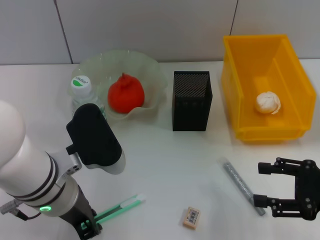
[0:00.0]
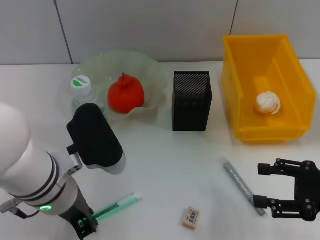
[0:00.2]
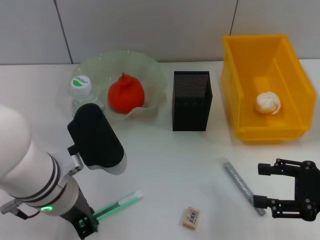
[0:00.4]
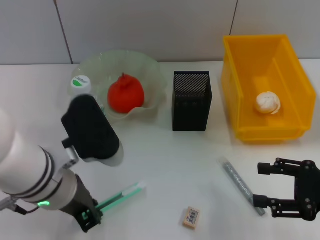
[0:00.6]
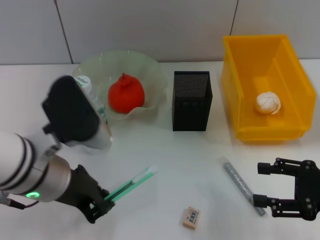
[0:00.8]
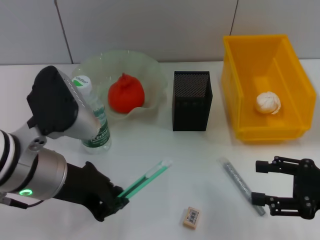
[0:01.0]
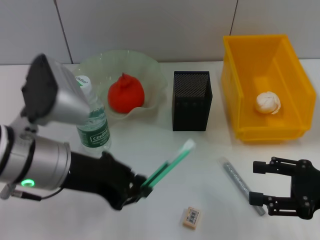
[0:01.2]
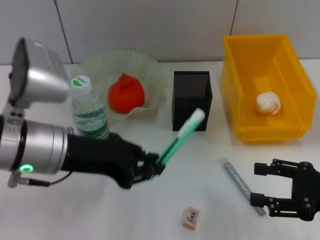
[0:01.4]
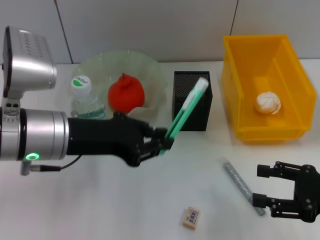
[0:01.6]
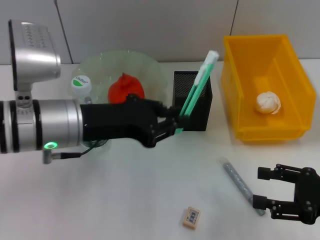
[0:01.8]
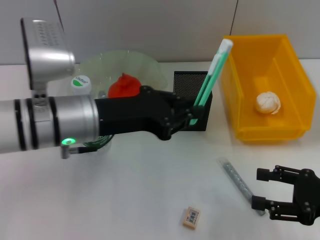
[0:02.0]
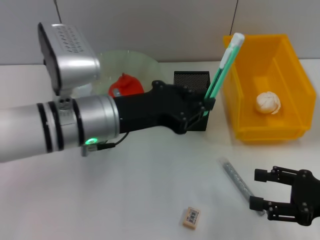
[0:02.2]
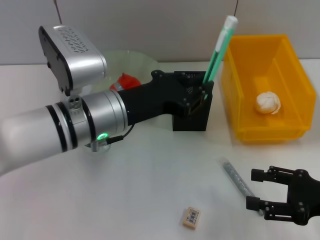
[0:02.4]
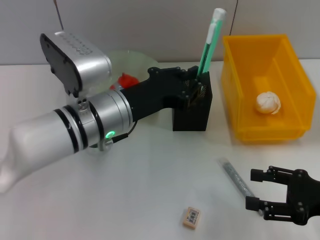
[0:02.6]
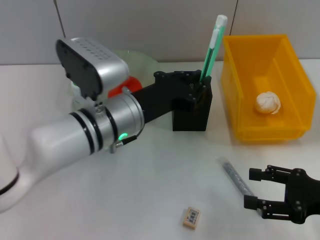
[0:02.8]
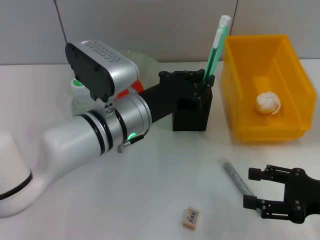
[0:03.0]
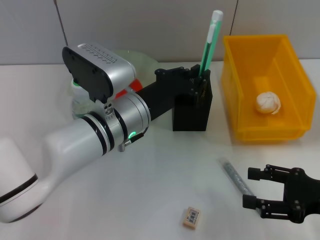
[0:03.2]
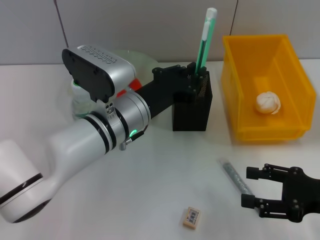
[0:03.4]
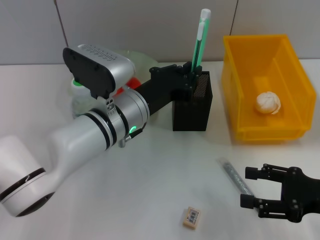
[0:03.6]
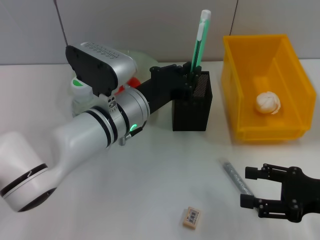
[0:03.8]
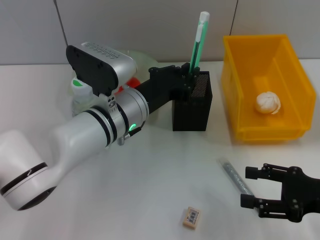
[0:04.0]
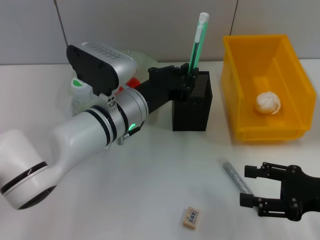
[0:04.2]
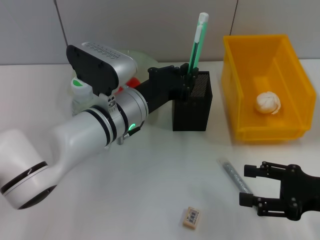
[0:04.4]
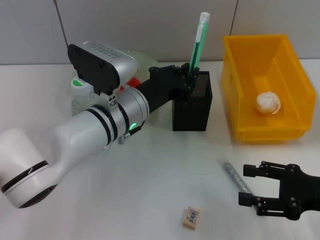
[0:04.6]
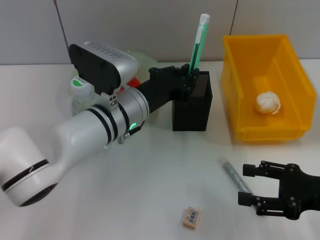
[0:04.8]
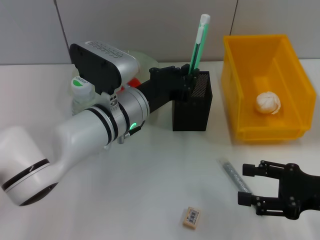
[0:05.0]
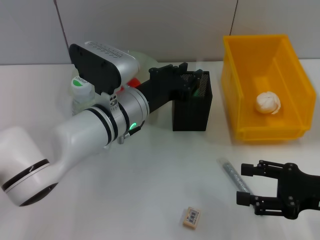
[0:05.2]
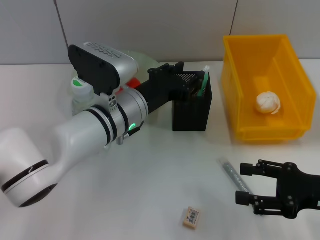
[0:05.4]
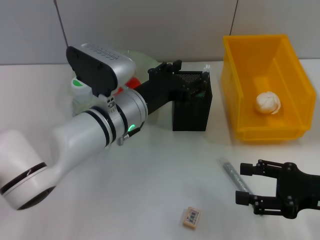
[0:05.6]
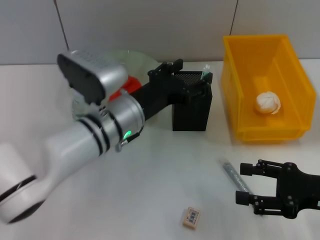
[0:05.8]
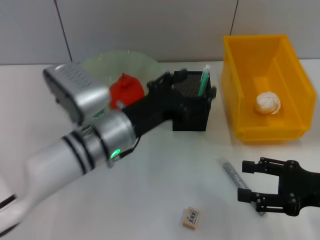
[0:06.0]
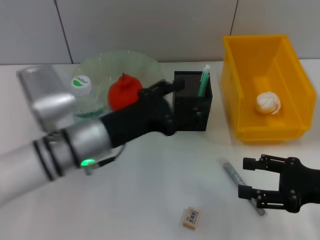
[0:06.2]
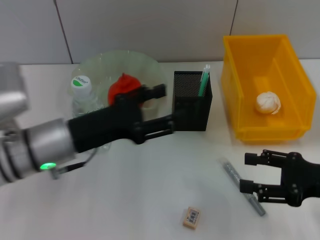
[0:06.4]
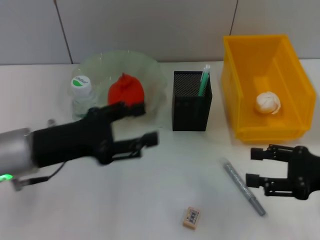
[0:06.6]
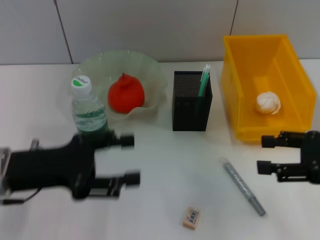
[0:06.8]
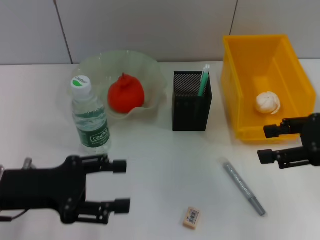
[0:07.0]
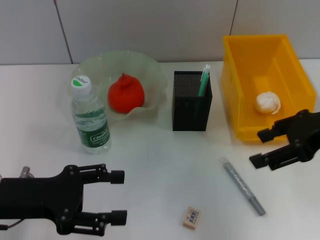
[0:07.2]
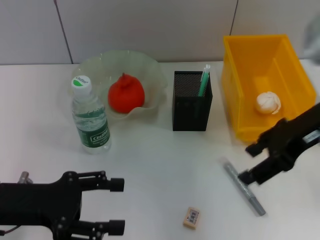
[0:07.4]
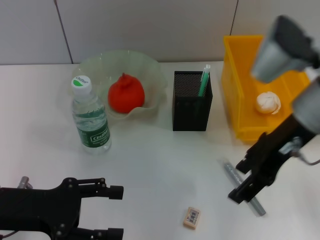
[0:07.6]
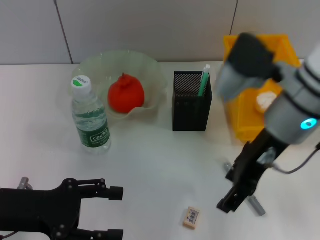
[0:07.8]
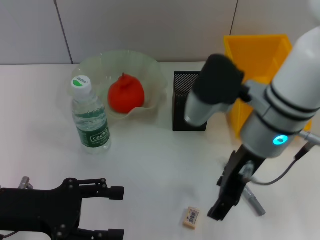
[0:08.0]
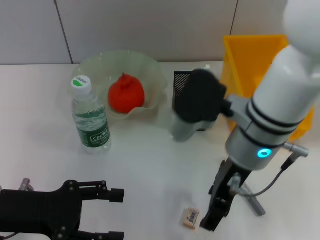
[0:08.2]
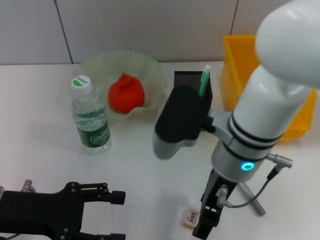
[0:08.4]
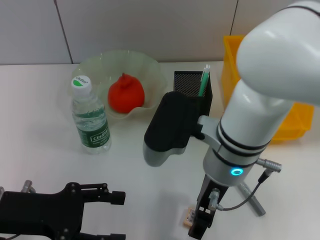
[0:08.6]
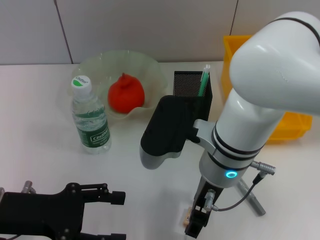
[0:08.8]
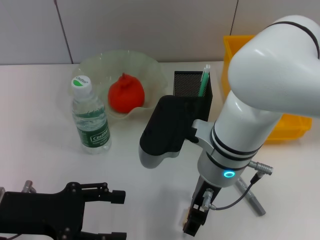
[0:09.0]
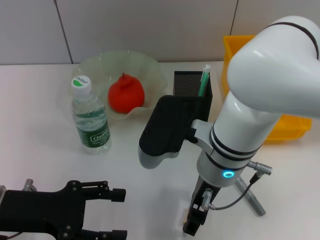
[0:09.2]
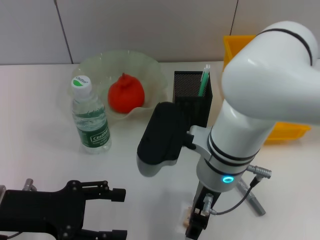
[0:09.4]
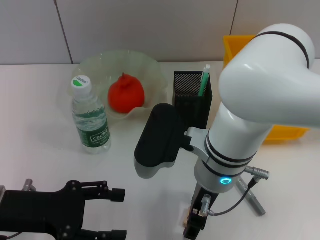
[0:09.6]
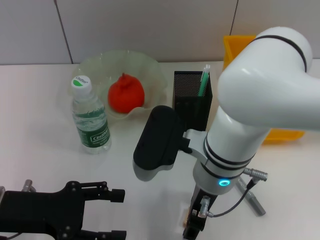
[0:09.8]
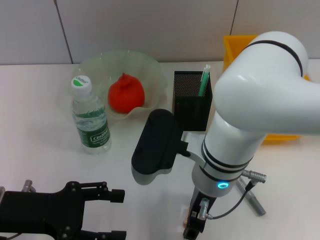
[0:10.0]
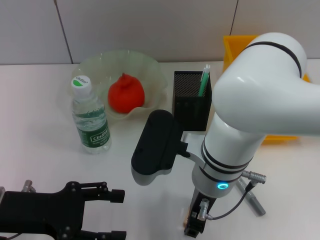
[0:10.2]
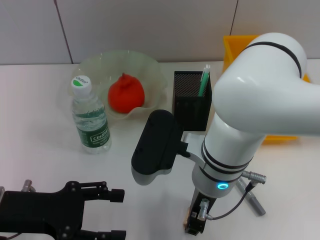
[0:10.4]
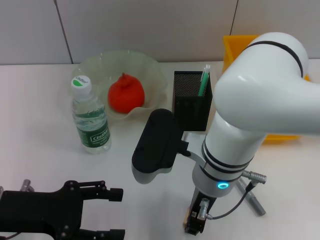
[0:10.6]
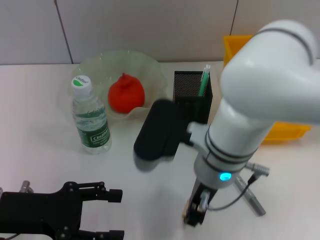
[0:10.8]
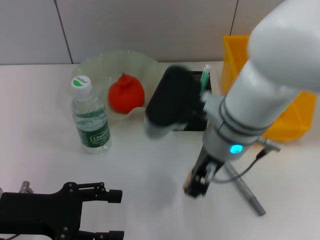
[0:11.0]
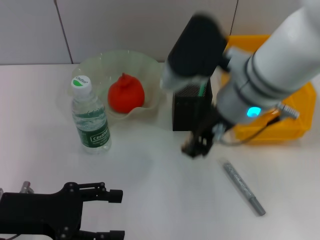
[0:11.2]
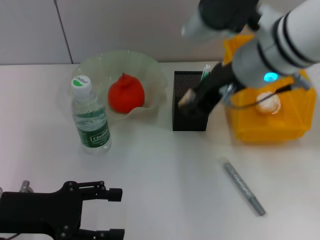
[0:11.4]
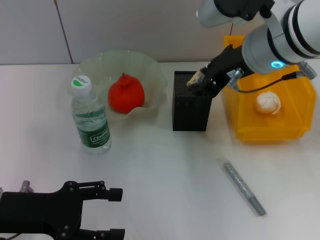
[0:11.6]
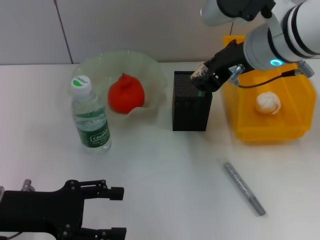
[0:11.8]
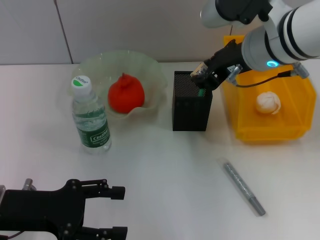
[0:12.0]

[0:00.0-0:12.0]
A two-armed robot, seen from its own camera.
Step, 0:00.6 to 0:05.4: Place the blue utility knife into the pen holder with the left hand.
Step, 0:05.6 to 0:10.4: Grab the eraser with the right hand.
0:00.0 to 0:01.6: The left gripper shifts by some 5 cm.
0:01.6 to 0:03.0: The left gripper travels to the right and downward by roughly 10 cm.
0:03.0 to 0:04.4: The grippers make only small movements.
0:04.4 to 0:06.0: The left gripper opens its fingers.
0:06.0 to 0:07.6: The left gripper heads to the left and backward, covering about 20 cm, while the right gripper travels upward, to the left and forward by roughly 20 cm.
0:07.6 to 0:09.0: The right gripper moves to the left and downward, approximately 15 cm.
0:09.0 to 0:10.4: There are only small adjustments of the grippers.
0:10.4 to 0:12.0: The right gripper shifts some 15 cm upward, forward and to the right.

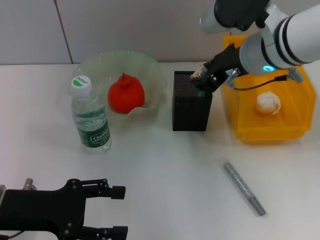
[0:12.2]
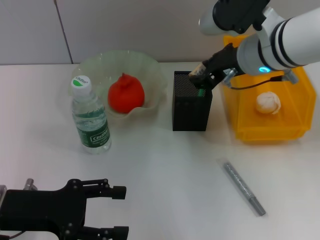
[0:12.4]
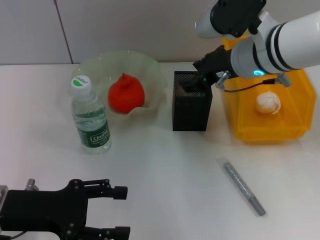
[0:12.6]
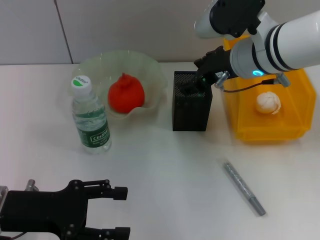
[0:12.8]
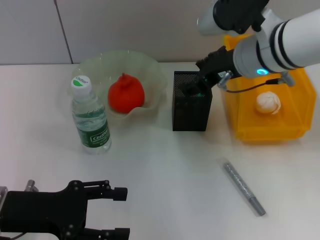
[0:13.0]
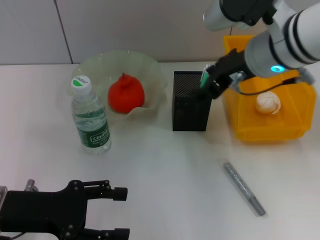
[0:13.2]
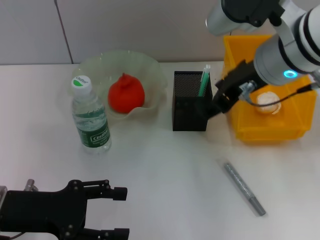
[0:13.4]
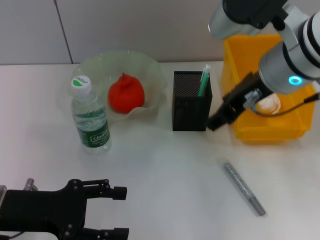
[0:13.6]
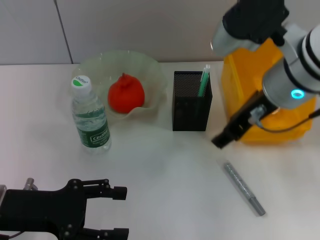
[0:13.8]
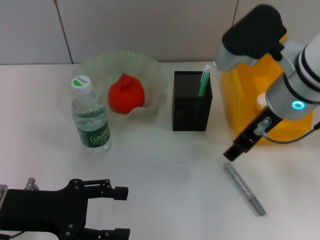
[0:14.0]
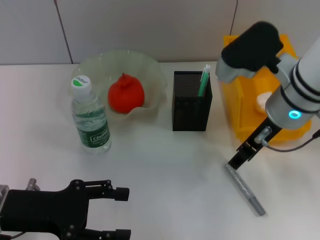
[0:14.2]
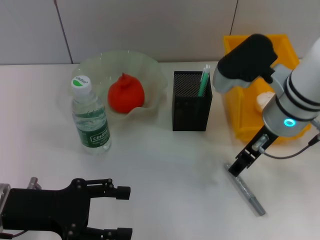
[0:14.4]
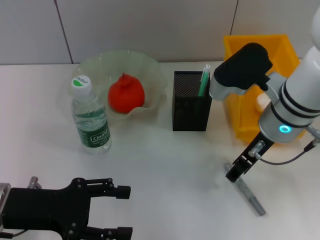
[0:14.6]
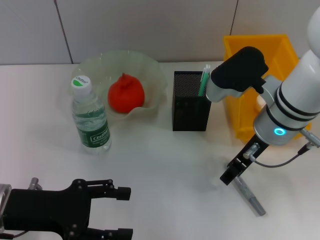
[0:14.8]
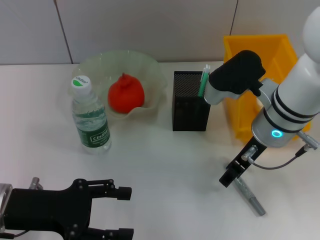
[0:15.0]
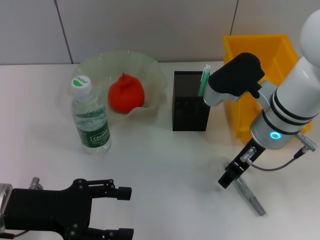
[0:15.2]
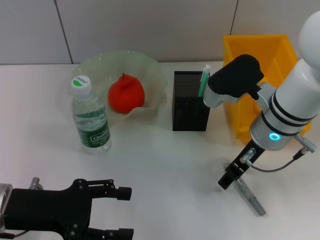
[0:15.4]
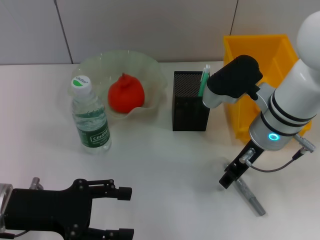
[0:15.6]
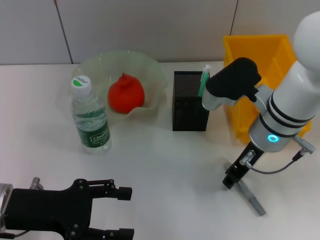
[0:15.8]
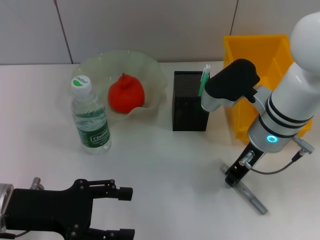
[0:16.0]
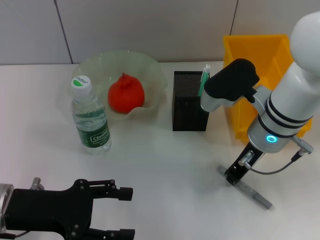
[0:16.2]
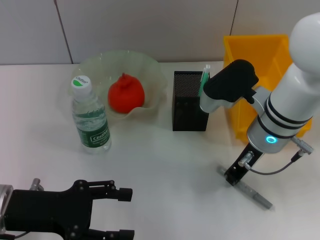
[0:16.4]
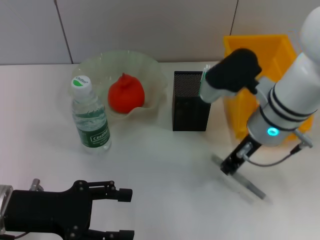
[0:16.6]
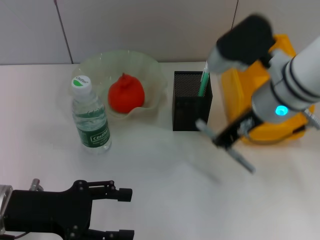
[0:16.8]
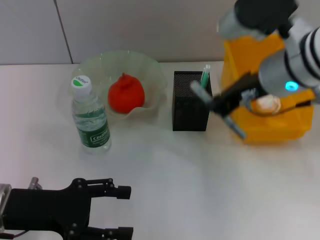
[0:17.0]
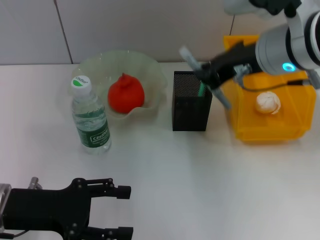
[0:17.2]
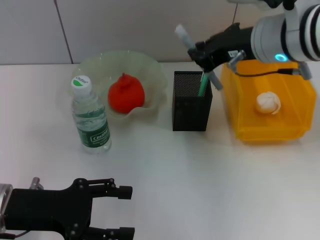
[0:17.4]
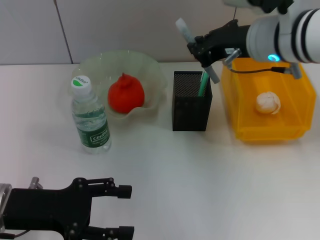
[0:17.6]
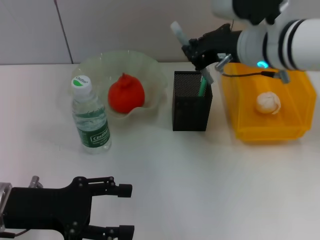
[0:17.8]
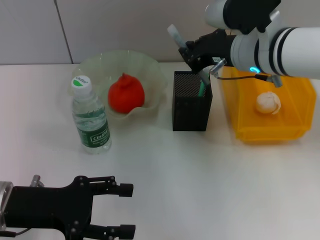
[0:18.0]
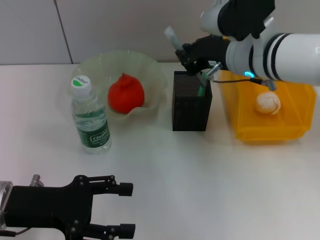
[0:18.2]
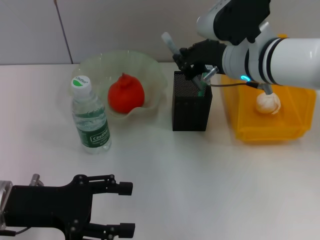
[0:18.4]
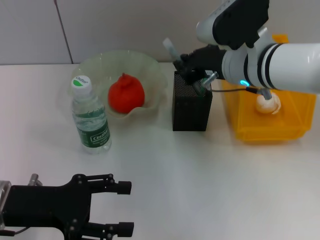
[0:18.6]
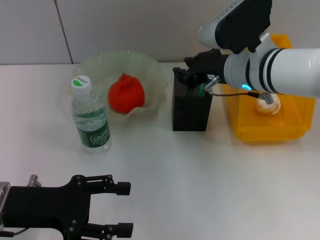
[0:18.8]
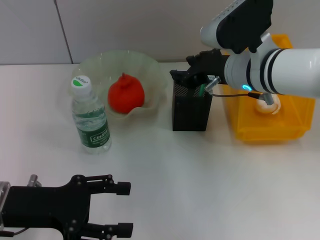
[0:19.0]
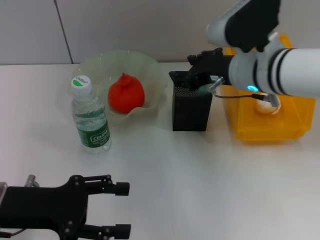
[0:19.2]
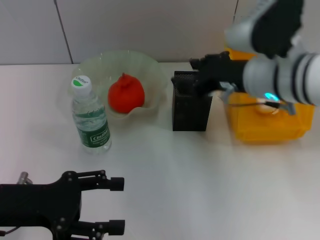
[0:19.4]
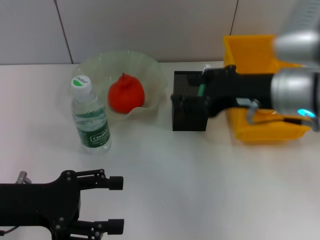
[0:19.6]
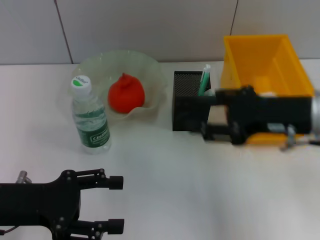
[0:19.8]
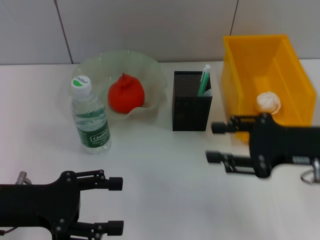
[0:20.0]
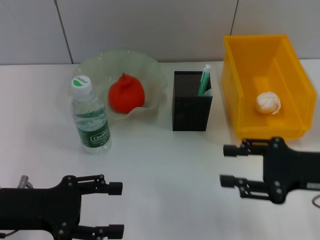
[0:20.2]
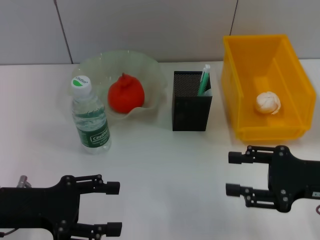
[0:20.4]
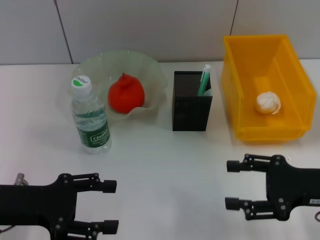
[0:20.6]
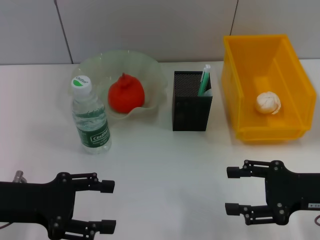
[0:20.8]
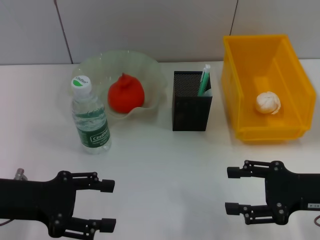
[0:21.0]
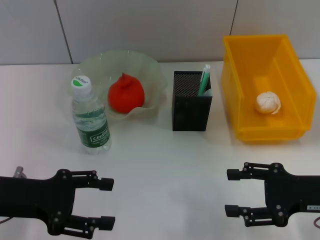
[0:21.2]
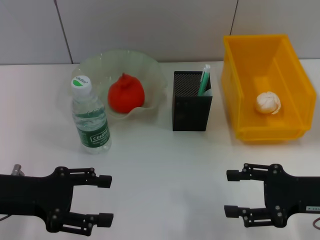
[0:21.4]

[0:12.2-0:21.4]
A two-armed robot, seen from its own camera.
Step, 0:13.2 to 0:16.0: Grab the gray glue with the right hand.
Step, 0:16.4 to 0:19.0: Place the gray glue into the pen holder with the right hand.
0:12.2 to 0:13.8: The right gripper moves backward, roughly 5 cm.
0:13.8 to 0:15.2: The right gripper travels downward by some 10 cm.
0:15.2 to 0:16.8: The right gripper shifts roughly 5 cm upward, and closes its fingers.
0:18.4 to 0:19.8: The right gripper moves to the right and backward, about 15 cm, and opens up.
0:19.8 to 0:21.4: The right gripper moves downward and to the right, roughly 10 cm.

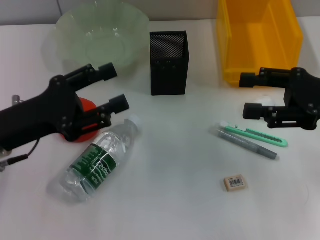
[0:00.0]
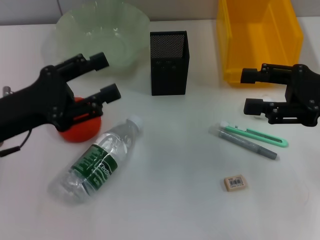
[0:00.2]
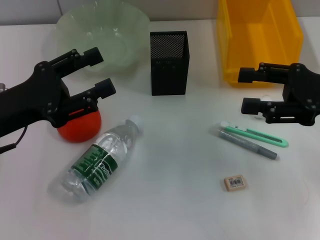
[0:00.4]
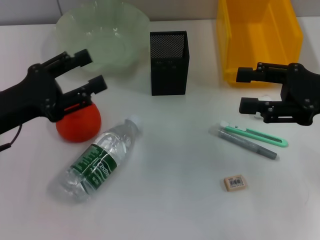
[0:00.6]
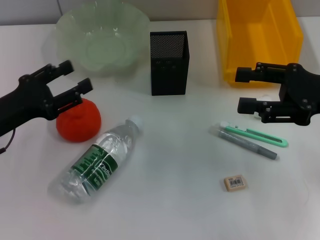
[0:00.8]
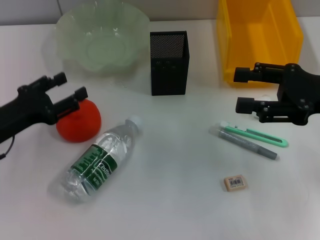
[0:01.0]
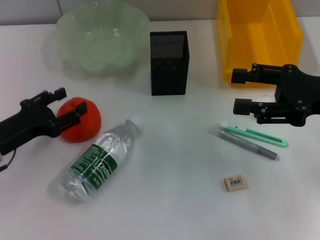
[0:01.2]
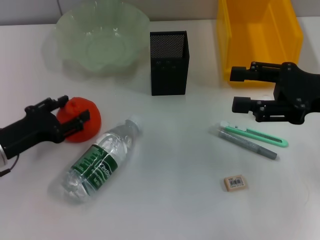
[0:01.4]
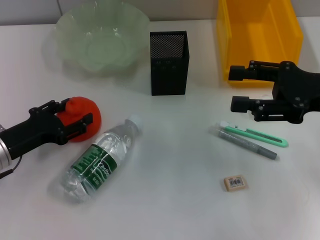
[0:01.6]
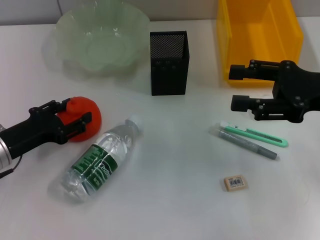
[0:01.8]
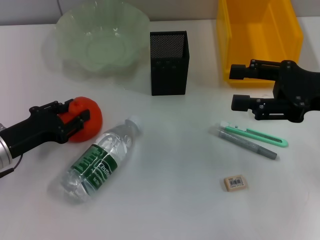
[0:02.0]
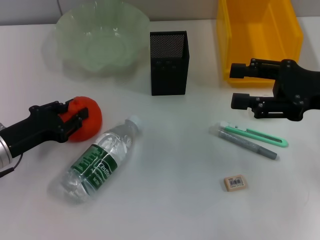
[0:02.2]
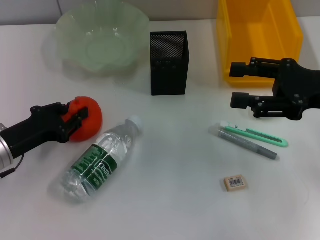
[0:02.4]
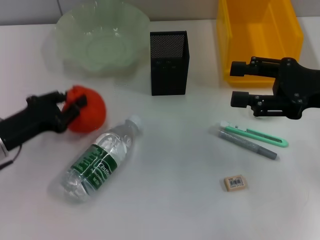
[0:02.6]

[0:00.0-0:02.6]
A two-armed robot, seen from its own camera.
Step, 0:00.0 to 0:02.2: Grab the orange with the left hand.
0:00.0 to 0:01.2: The left gripper moves downward, roughly 5 cm.
0:01.2 to 0:02.6: The left gripper closes its fingers.
